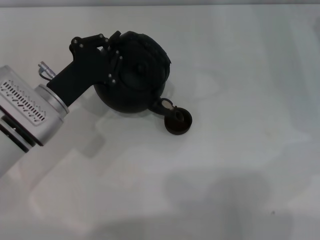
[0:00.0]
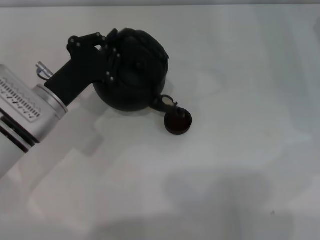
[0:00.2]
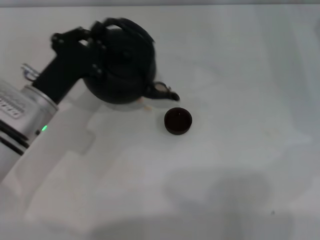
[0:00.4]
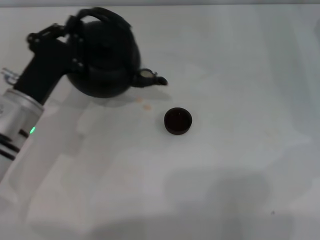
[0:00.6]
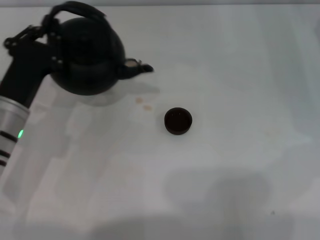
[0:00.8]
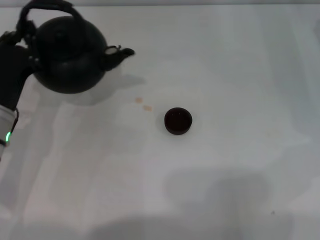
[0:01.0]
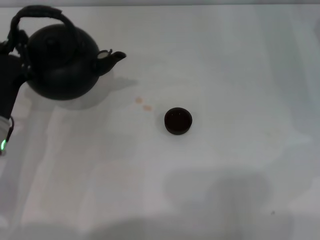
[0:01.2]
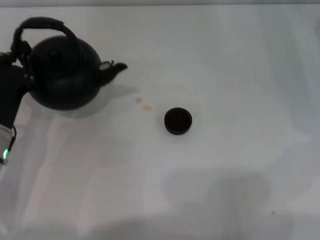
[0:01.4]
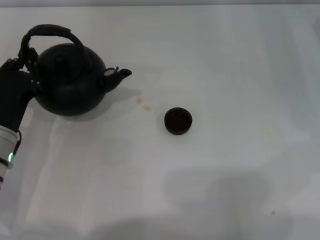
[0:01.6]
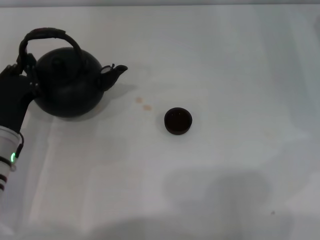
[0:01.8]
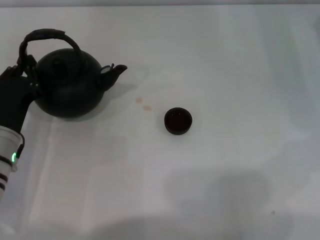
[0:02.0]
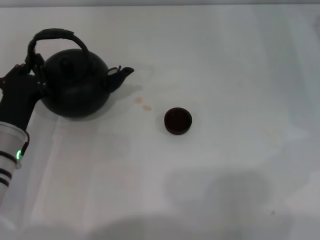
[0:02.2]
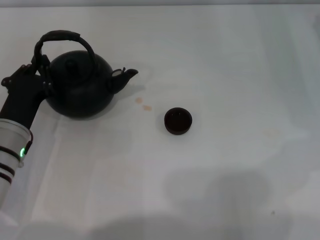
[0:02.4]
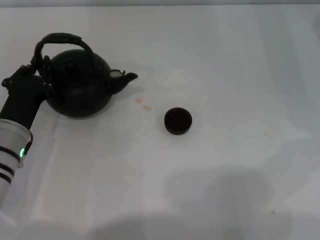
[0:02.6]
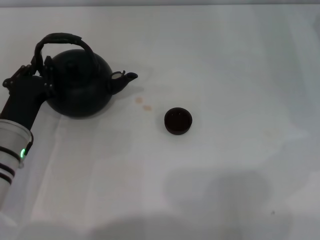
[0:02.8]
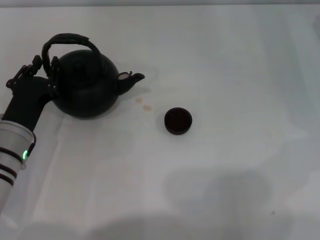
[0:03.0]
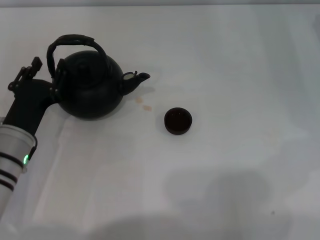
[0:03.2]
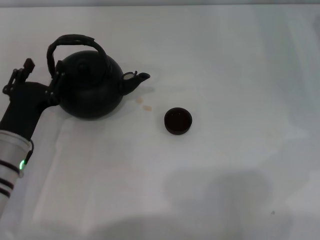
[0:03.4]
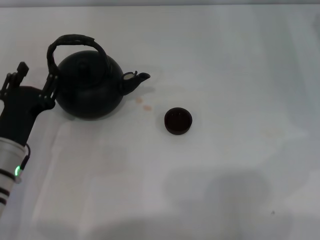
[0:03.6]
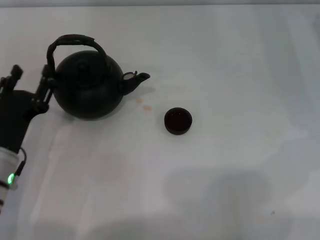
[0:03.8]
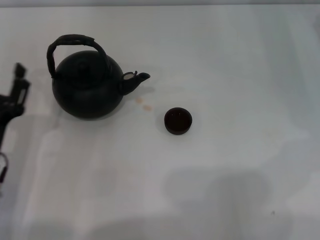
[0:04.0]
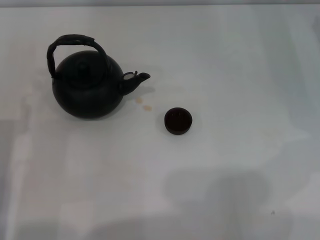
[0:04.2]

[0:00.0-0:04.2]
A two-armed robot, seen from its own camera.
Task of the whole recording: Grasp the handle of the teapot with one hand and pour tea into the teacup.
Step, 0:00.6 to 0:03.8: Put down the teapot with the left gripper.
0:00.0 to 0:01.4: The left gripper shifts some 5 cm backward and to the left.
0:01.4 to 0:02.8: There are only small adjustments of the grippers.
0:02.8 to 0:04.2: The left gripper heads backward, covering about 5 cm, and opens its fingers.

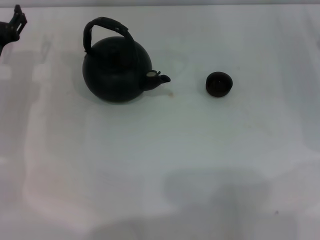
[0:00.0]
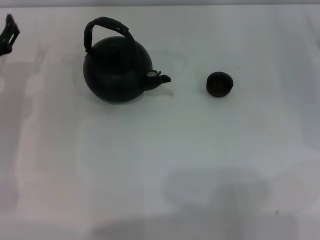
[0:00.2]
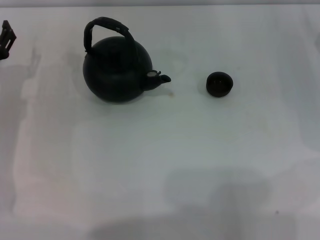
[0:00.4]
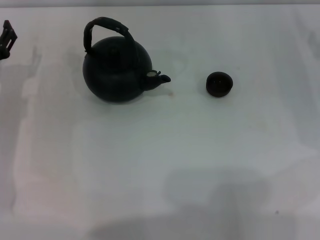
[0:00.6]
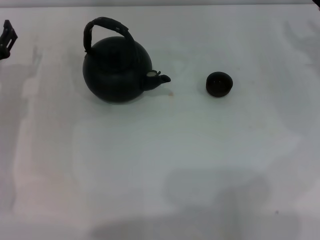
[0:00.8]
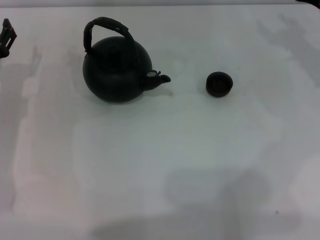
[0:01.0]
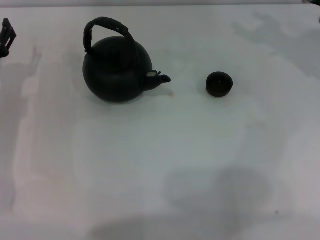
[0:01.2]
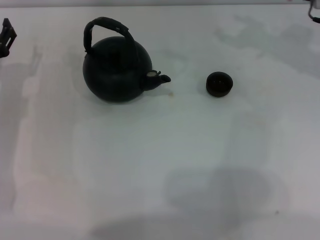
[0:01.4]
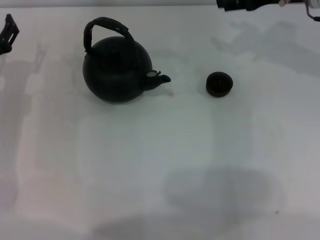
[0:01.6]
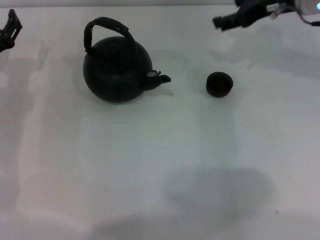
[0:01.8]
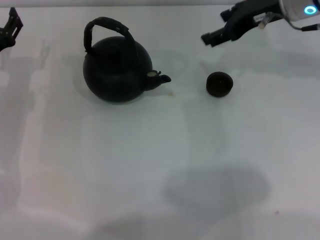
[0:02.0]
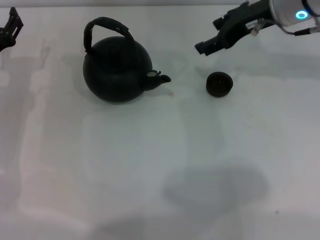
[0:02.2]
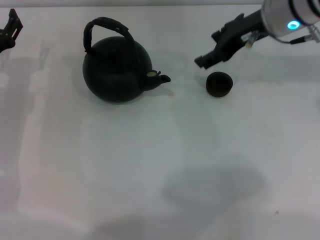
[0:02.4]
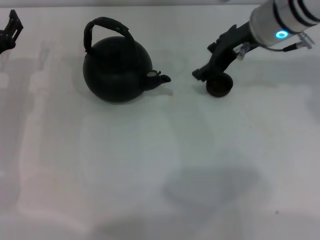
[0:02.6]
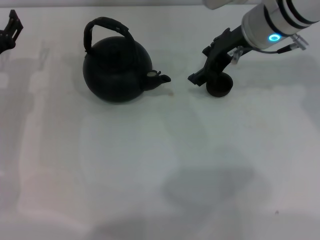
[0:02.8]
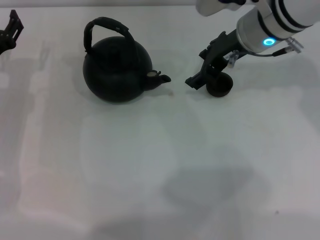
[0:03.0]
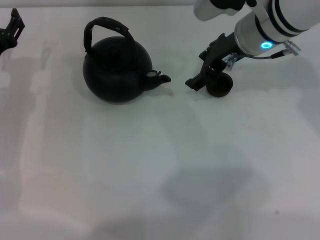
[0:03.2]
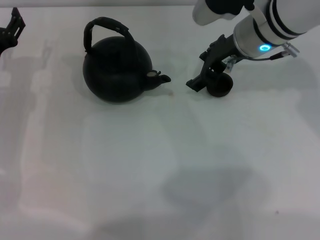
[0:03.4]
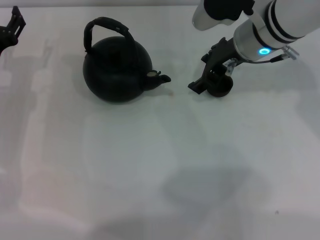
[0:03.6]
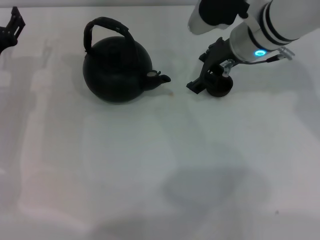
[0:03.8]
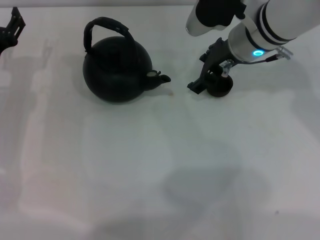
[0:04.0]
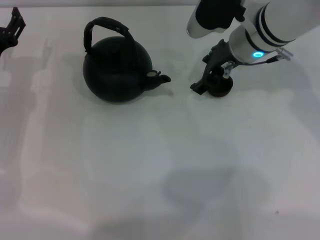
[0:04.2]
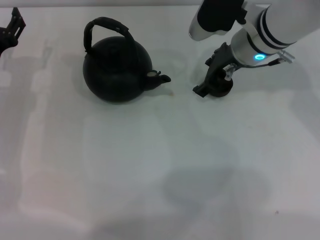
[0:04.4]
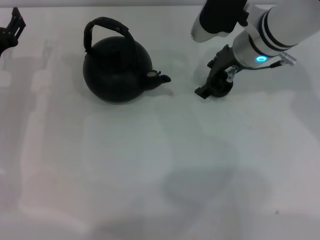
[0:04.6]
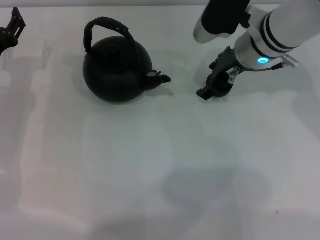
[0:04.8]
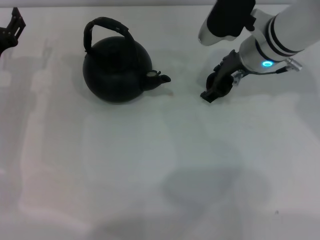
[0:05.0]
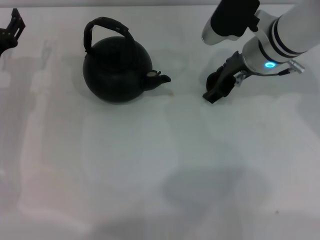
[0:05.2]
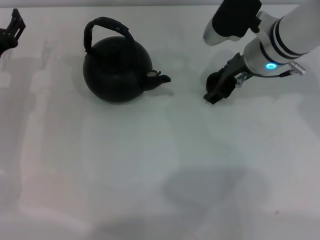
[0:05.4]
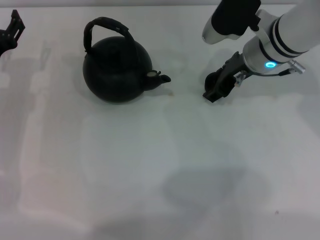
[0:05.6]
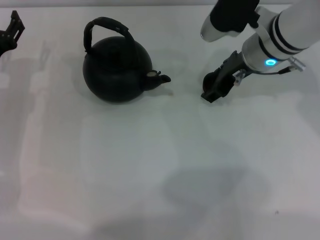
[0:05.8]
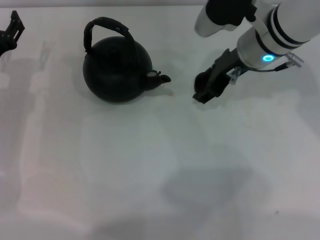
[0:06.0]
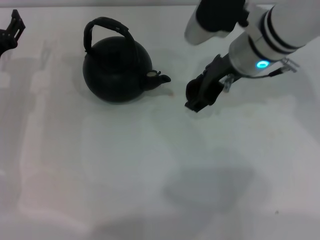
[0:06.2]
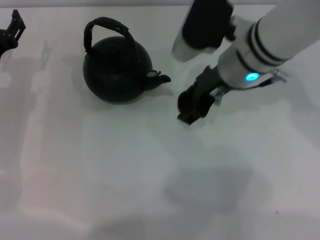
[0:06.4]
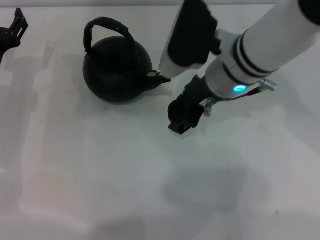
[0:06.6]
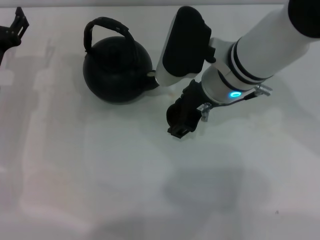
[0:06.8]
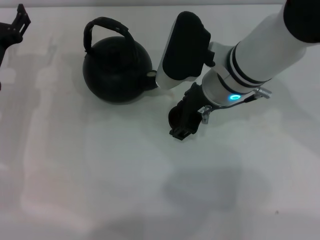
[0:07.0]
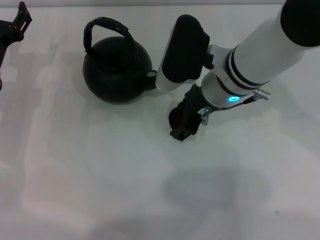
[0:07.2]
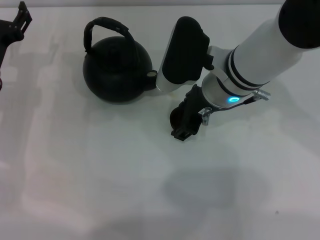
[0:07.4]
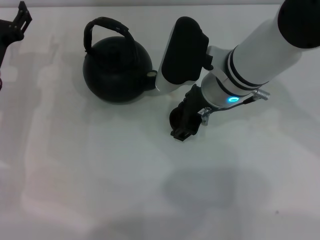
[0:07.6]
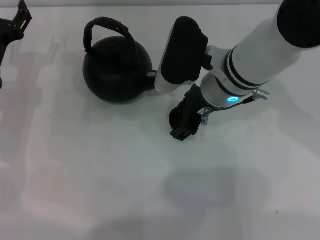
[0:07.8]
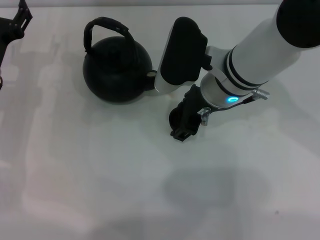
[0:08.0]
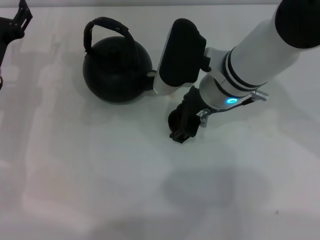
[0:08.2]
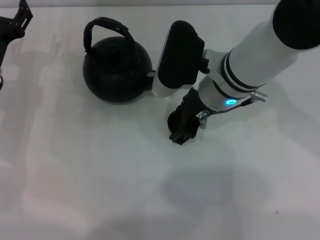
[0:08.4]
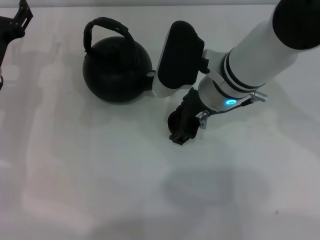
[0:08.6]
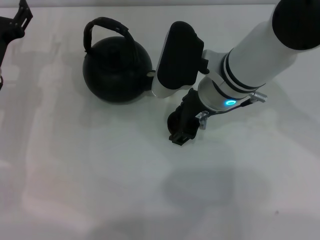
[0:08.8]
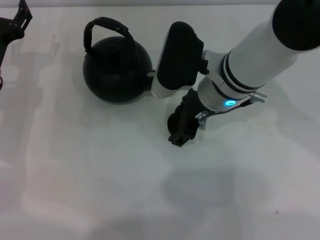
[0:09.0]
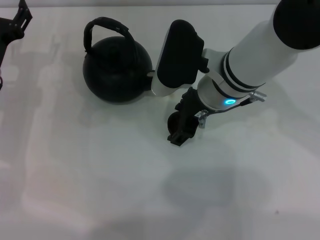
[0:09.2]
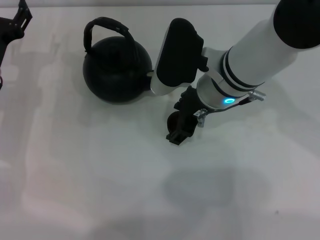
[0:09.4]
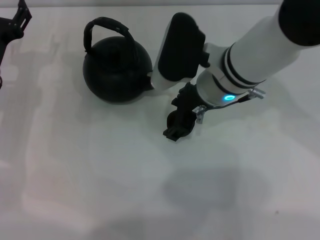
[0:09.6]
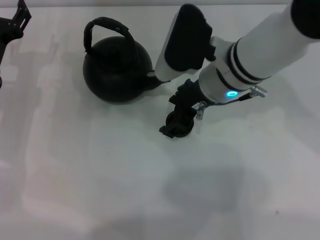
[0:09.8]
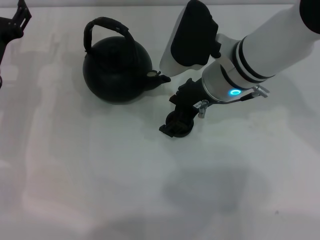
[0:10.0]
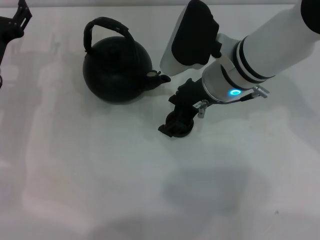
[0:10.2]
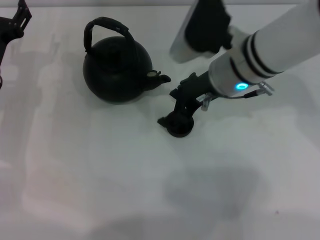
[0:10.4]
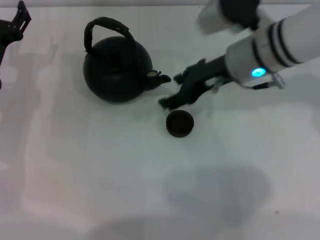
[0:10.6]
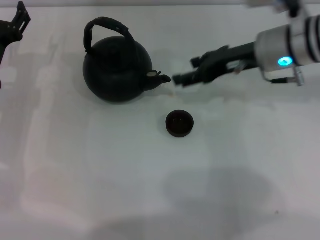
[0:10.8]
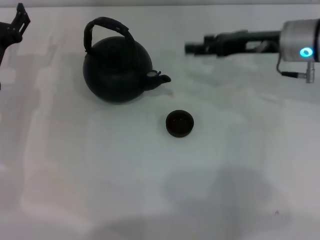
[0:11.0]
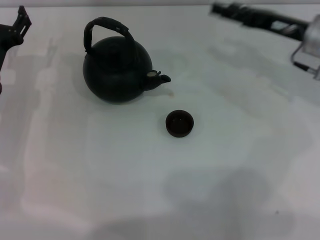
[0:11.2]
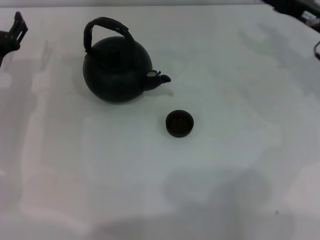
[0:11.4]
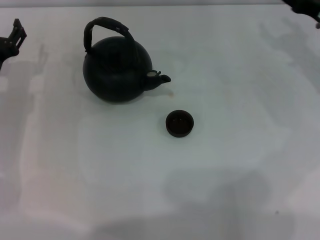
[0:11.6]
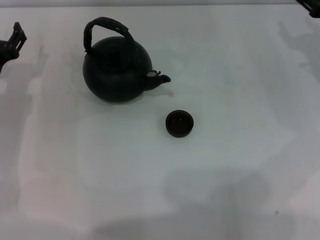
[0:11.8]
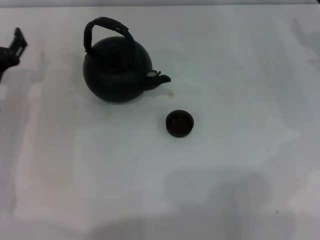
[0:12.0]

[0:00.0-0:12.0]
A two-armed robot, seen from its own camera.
Task of the whole recording: Grasp the handle of the teapot with one hand and pour tea into the teacup.
Step, 0:00.0 to 0:06.0: Pick up the teacup with the right gripper.
Step, 0:06.4 to 0:09.6: Place the teacup in the center of view with the right gripper.
0:00.0 to 0:01.6: The right gripper moves upward, to the left and forward, approximately 20 cm.
0:01.6 to 0:03.0: The right gripper moves to the left, some 10 cm.
0:03.0 to 0:06.0: The grippers stay close to where they were, moving slightly.
0:06.0 to 0:07.6: The right gripper travels to the left by approximately 5 cm.
0:07.6 to 0:09.0: Neither gripper changes place.
0:09.0 to 0:10.4: The grippers move only a little.
0:10.4 to 0:12.0: The right gripper is displaced to the right by approximately 20 cm.

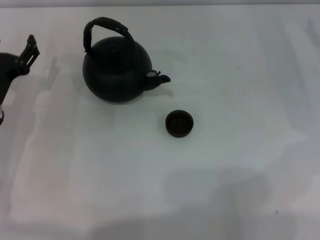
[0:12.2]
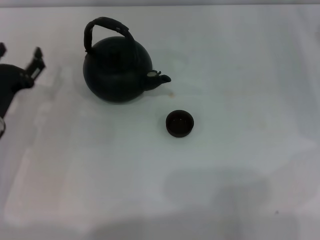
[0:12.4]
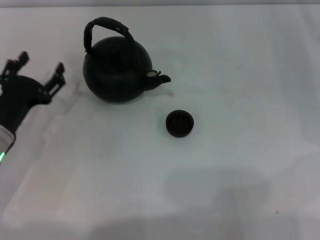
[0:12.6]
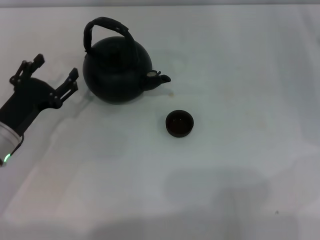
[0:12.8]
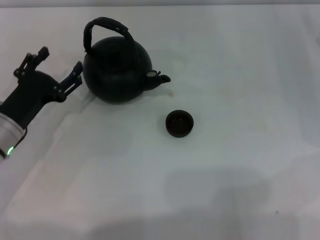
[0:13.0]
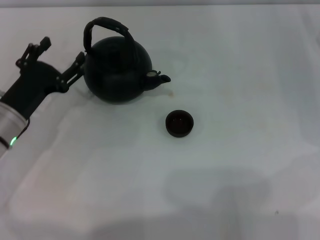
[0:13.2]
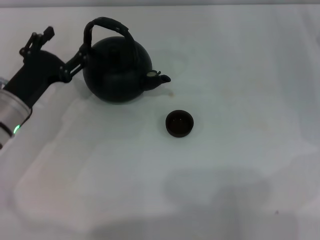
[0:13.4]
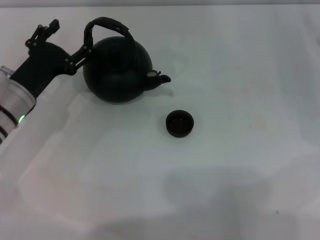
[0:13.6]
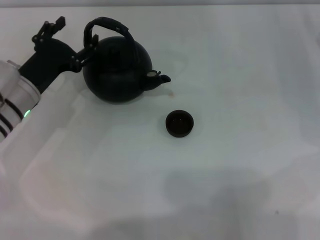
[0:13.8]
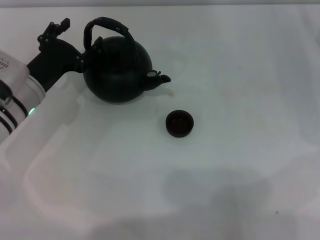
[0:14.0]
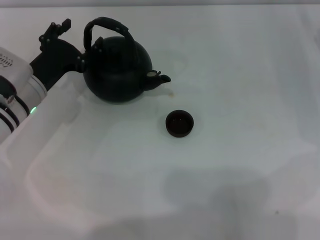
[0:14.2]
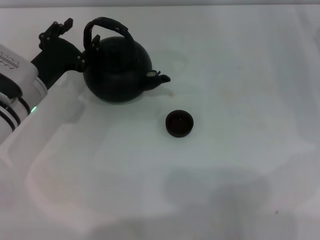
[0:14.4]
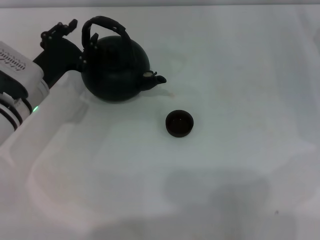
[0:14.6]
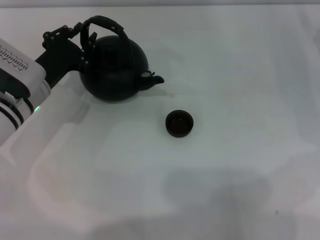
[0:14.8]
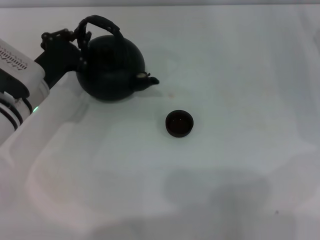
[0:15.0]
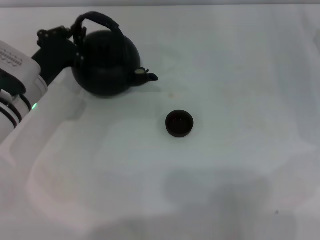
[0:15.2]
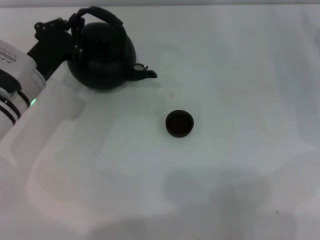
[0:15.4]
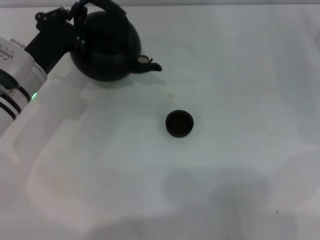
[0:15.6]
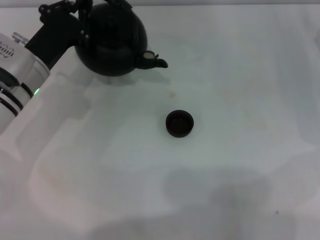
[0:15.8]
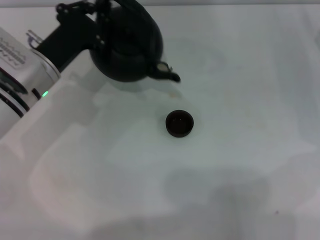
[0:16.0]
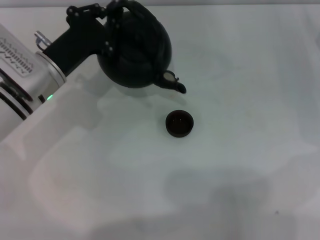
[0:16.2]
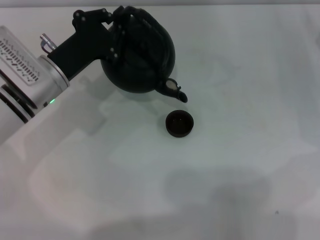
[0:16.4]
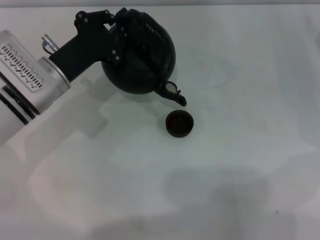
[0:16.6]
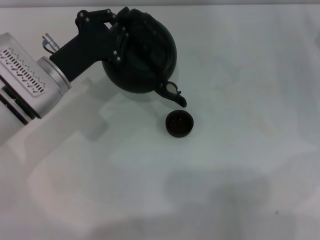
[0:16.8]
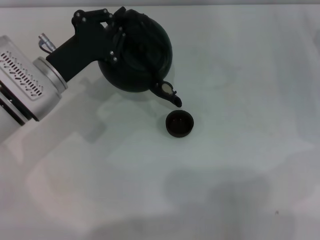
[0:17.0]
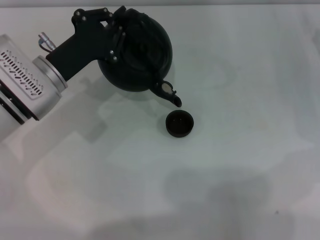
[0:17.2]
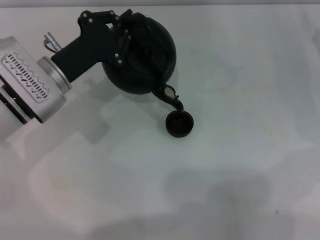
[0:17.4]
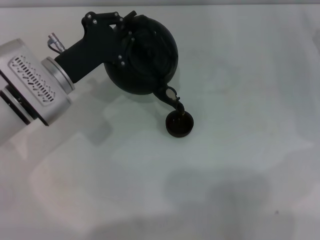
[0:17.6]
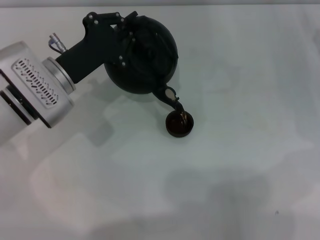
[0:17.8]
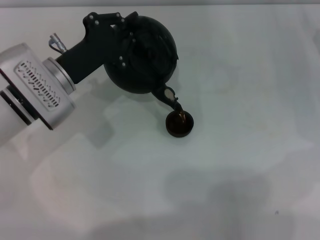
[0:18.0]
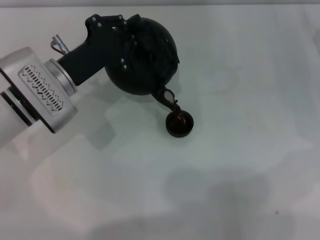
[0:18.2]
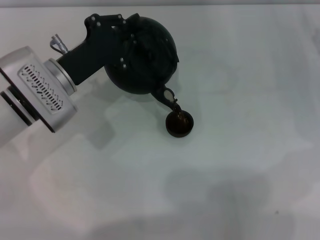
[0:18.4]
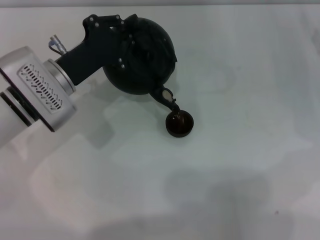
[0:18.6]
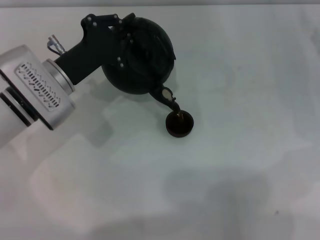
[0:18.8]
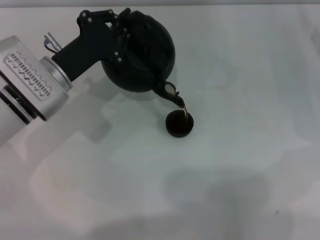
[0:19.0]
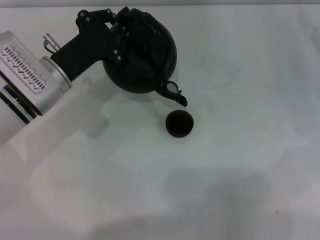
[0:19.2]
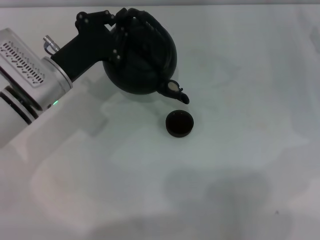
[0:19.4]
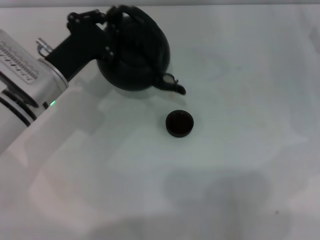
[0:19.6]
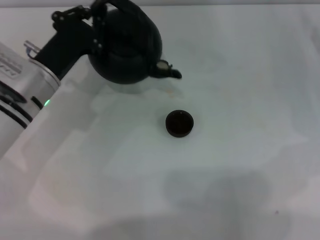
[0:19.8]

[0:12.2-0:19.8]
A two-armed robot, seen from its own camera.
Task of the whole recording: Grasp the handle of the teapot with one hand and pour tea into the teacup.
Step, 0:12.2 to 0:15.8: Pick up the teapot with the left gripper.
Step, 0:16.0 to 0:19.2: Pour tea into the teacup with the left gripper.
0:12.2 to 0:13.8: The left gripper shifts by approximately 5 cm.
0:13.8 to 0:15.2: The left gripper closes up.
0:16.8 to 0:18.2: The grippers make only small movements.
